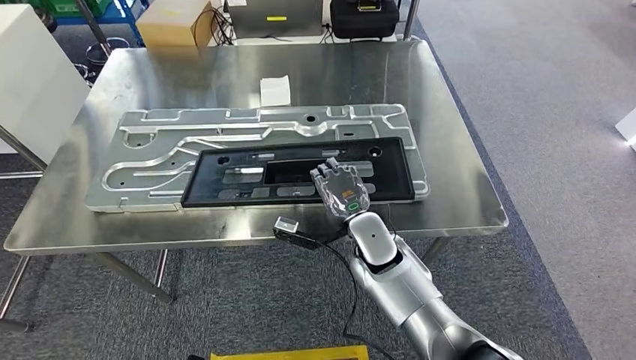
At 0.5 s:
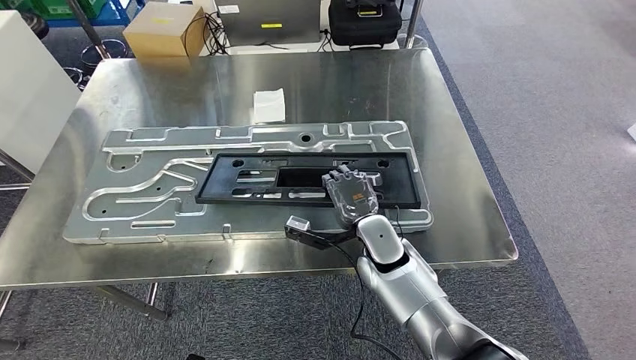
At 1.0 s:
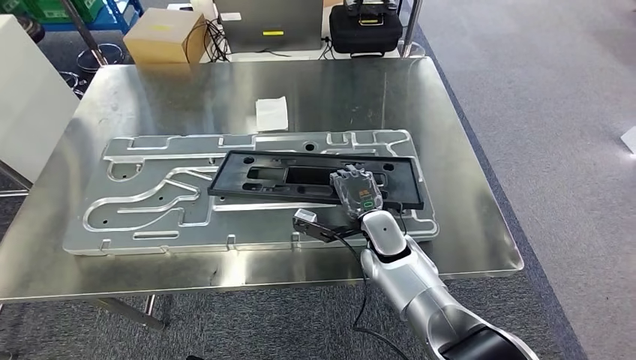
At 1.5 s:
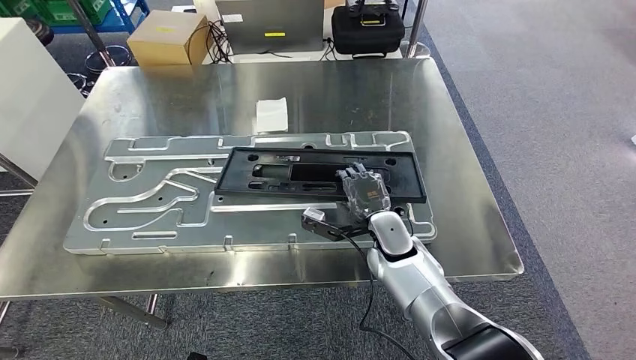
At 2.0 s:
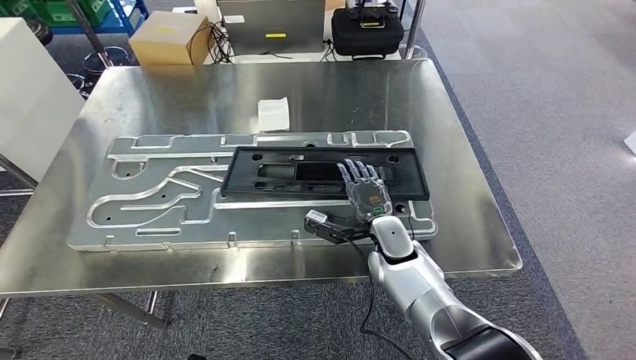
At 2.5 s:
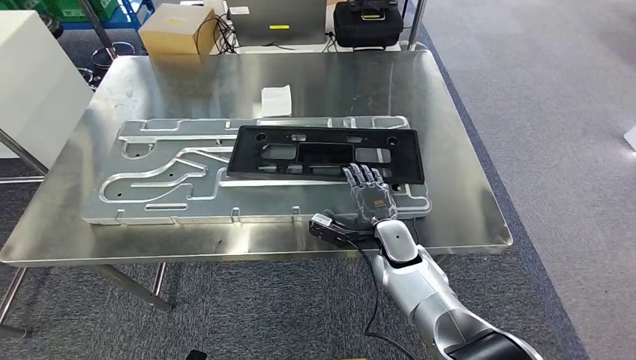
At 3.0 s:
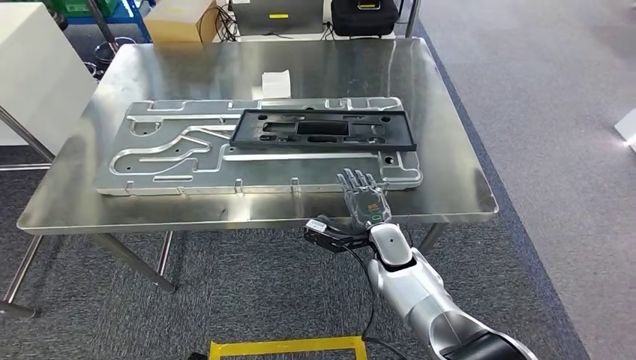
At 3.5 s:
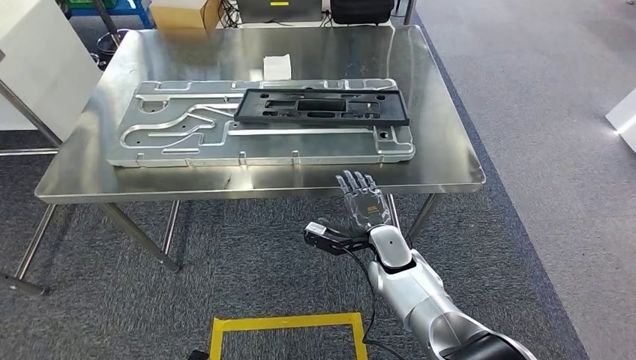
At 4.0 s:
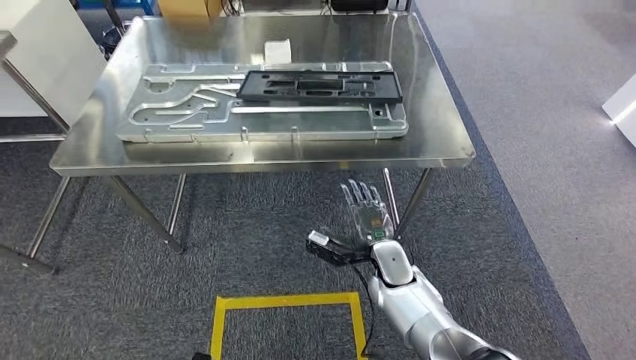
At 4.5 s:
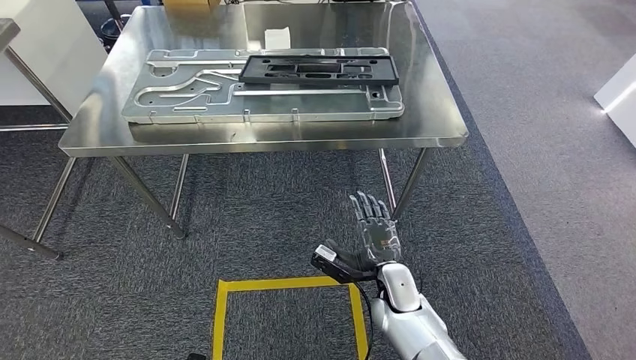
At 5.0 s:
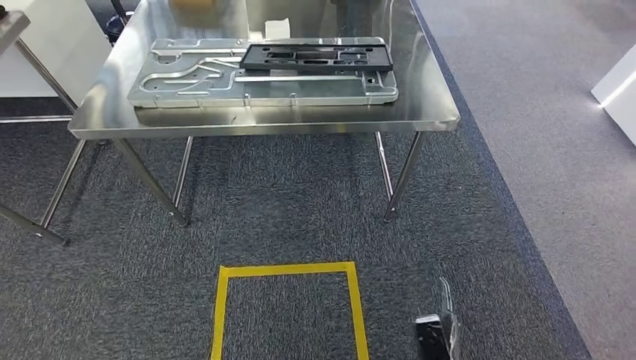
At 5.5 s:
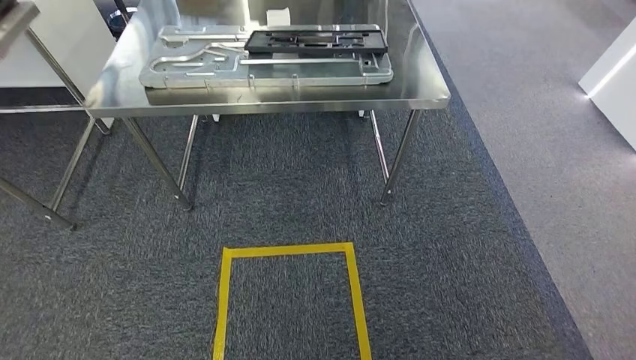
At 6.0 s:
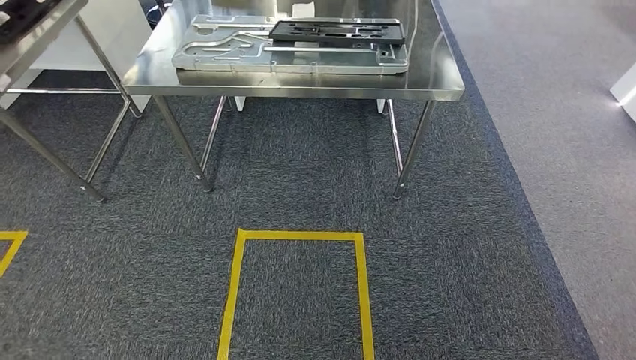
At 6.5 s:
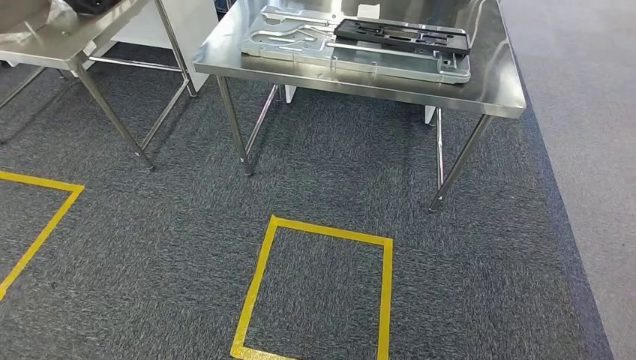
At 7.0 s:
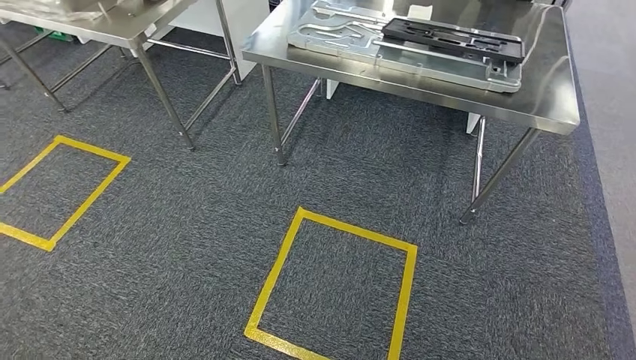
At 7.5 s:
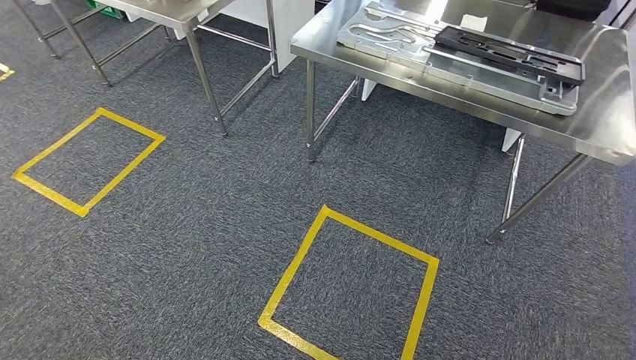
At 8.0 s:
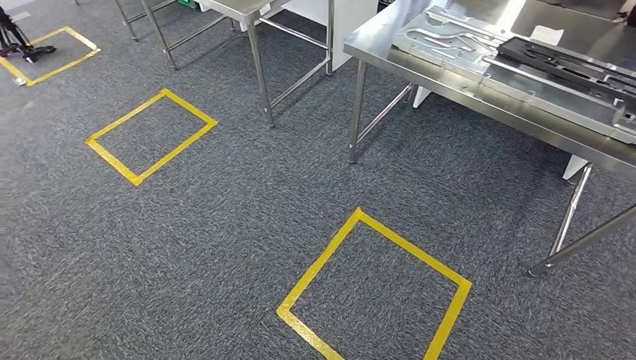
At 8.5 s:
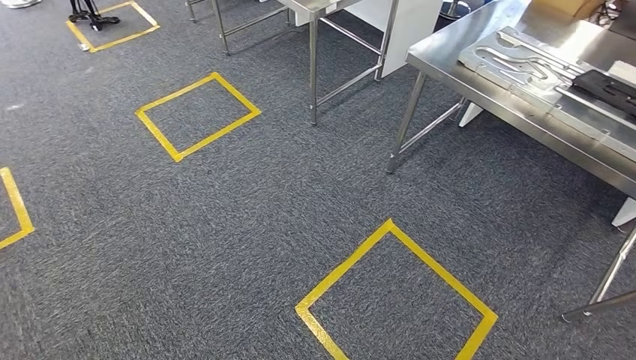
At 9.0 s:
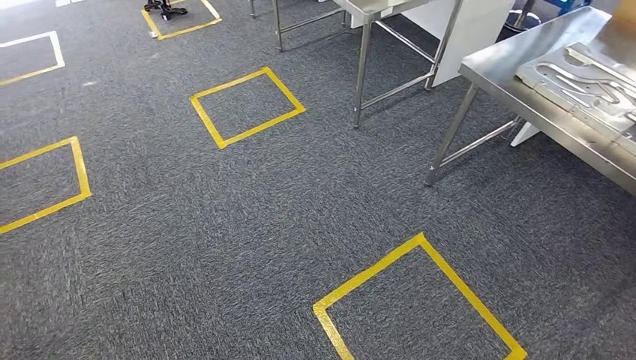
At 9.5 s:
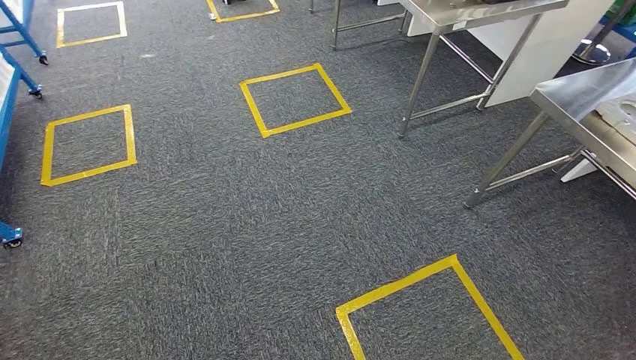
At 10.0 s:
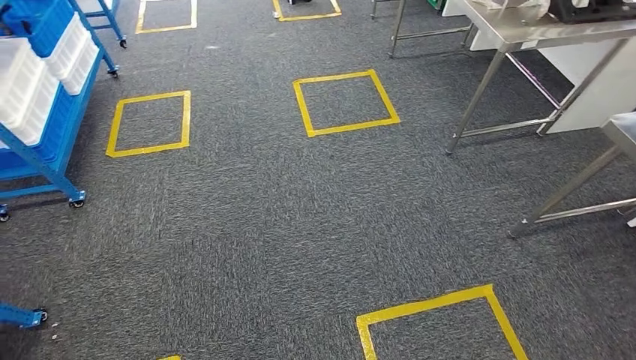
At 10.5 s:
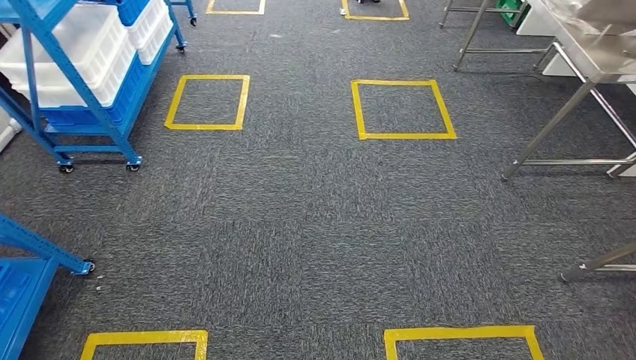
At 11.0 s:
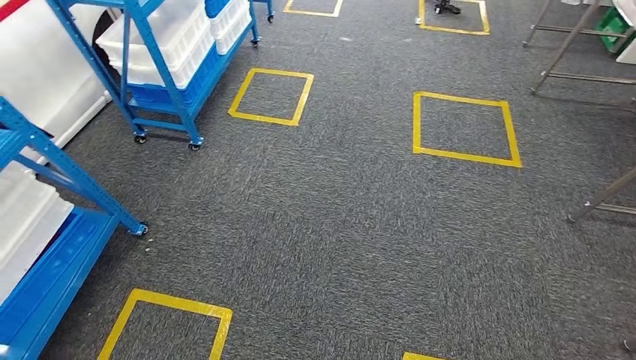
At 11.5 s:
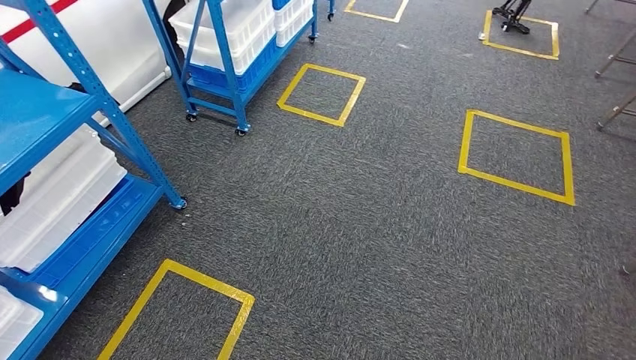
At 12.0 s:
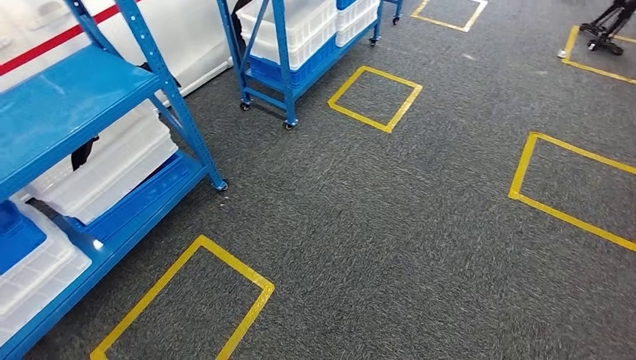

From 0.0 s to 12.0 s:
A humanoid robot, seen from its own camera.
Step, from 0.0 s to 6.0 s: Insert the large material into the corresponding slot on the workbench.

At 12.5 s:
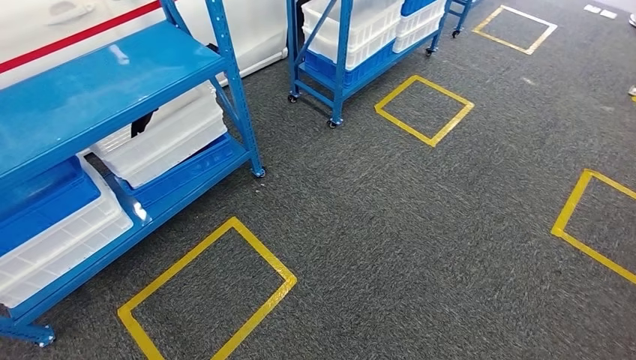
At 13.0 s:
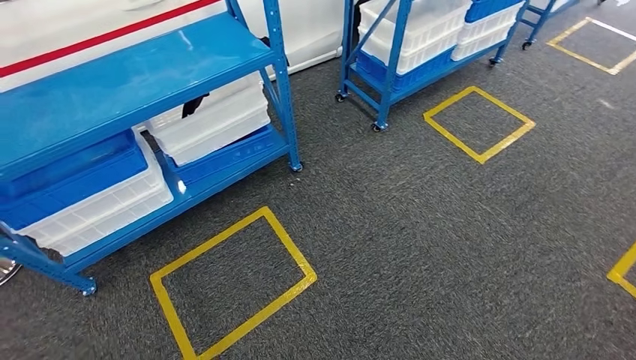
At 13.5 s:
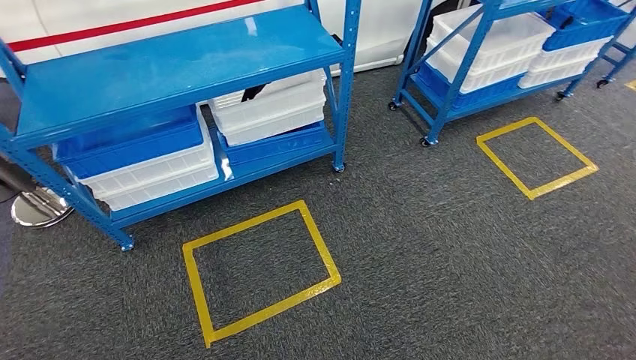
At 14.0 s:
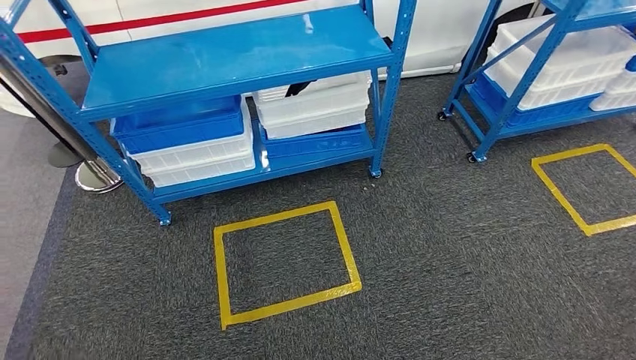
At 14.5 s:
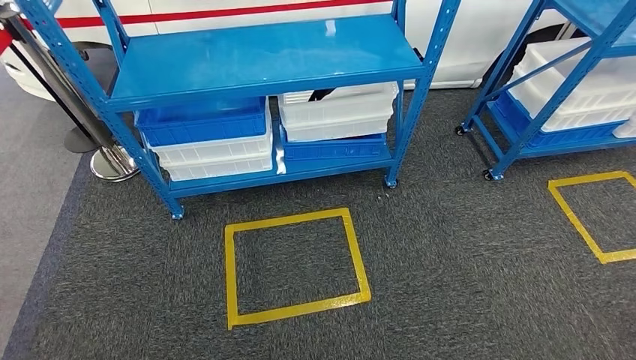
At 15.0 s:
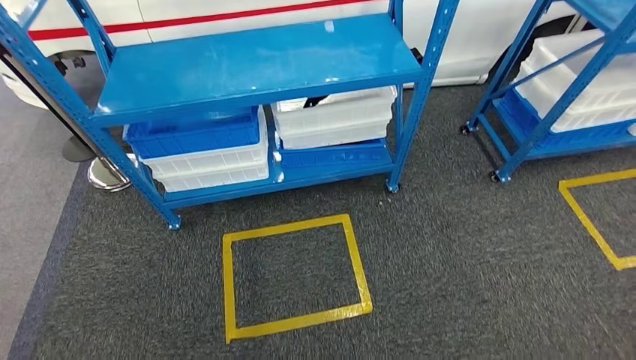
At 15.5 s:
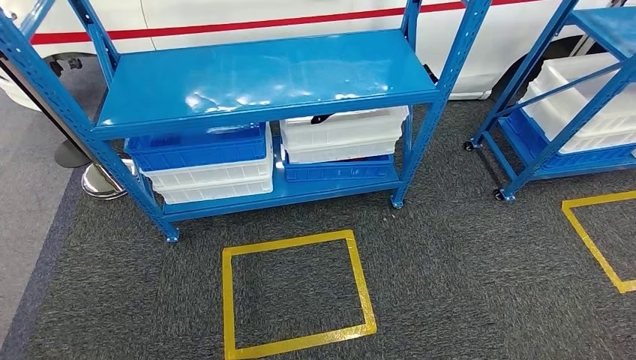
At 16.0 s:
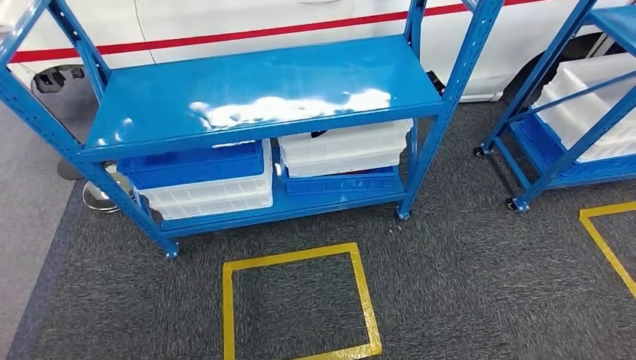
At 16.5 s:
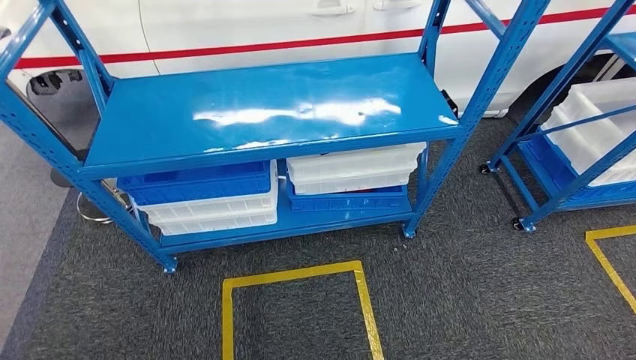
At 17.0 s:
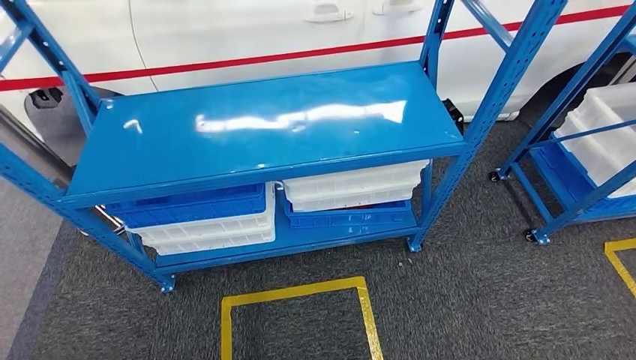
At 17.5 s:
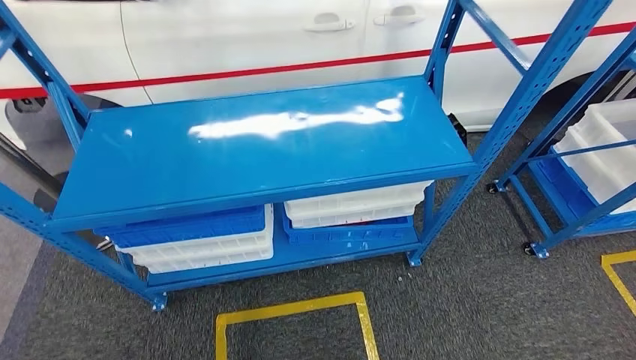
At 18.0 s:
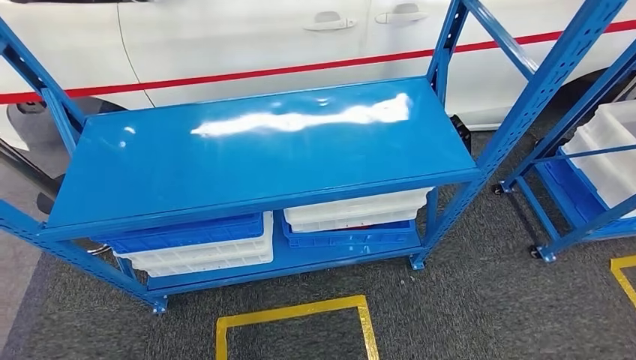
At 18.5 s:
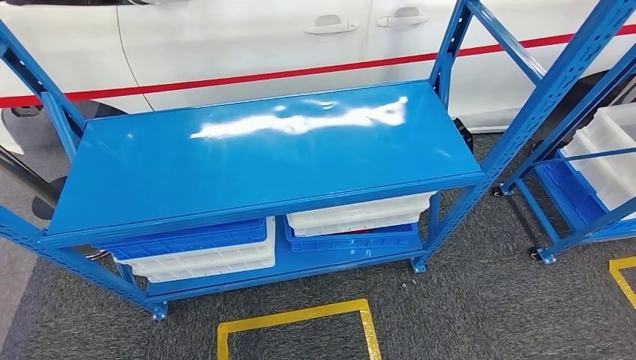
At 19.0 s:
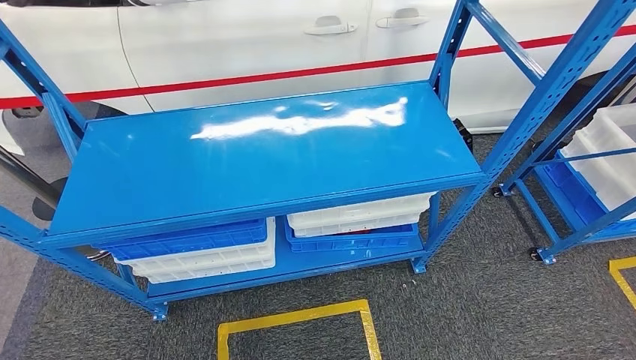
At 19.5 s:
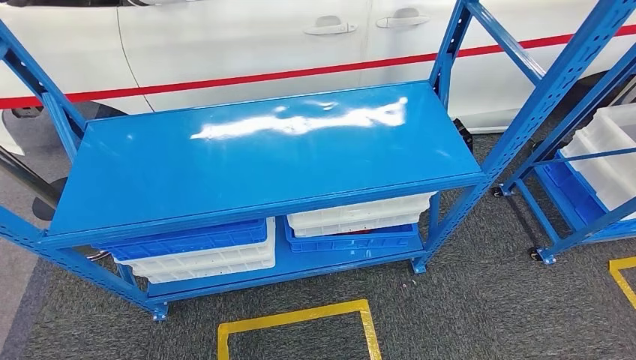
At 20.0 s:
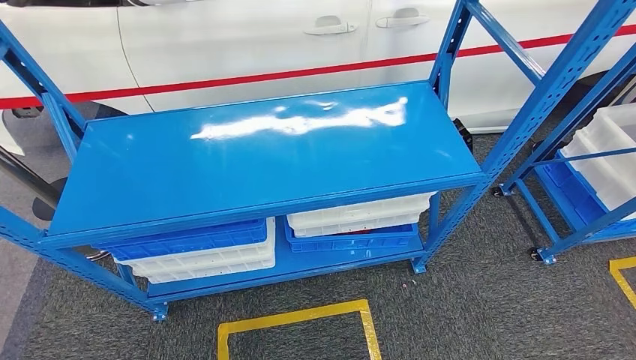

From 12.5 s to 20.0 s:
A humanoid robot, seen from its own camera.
Step, from 12.5 s to 20.0 s: Return to the initial position at the shelf.
